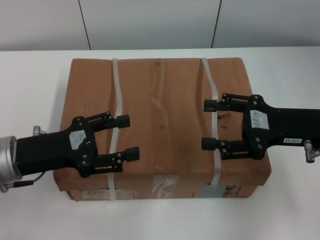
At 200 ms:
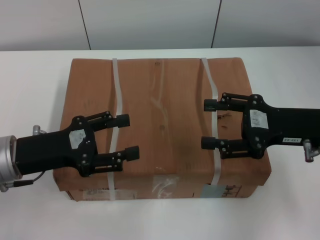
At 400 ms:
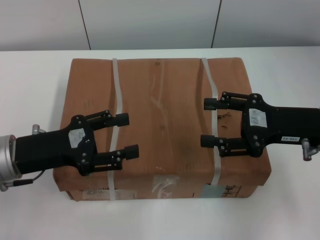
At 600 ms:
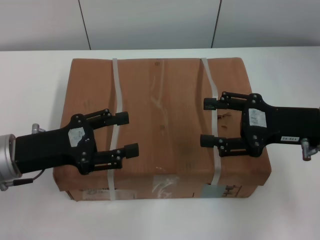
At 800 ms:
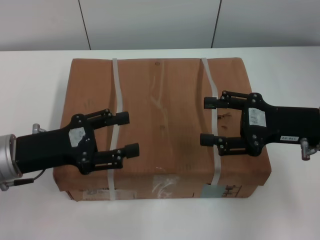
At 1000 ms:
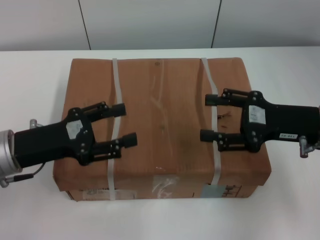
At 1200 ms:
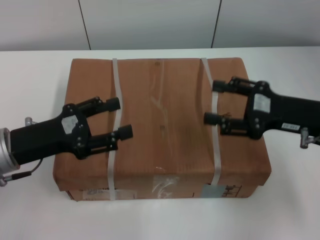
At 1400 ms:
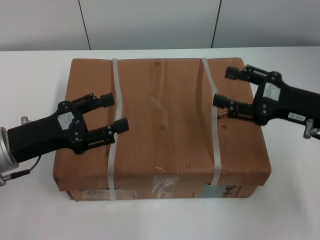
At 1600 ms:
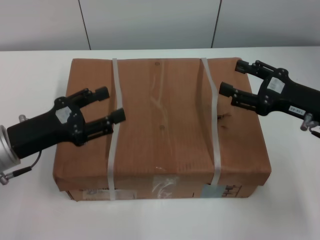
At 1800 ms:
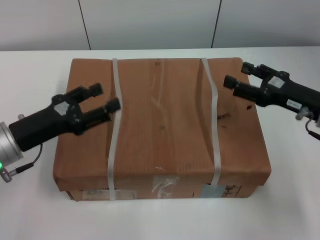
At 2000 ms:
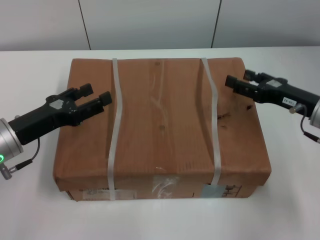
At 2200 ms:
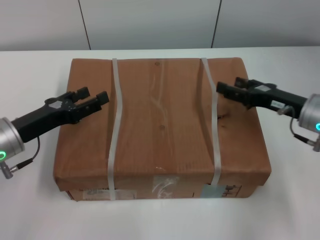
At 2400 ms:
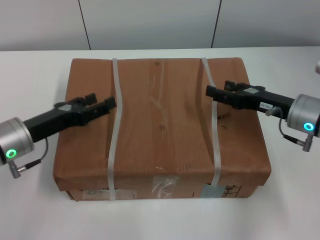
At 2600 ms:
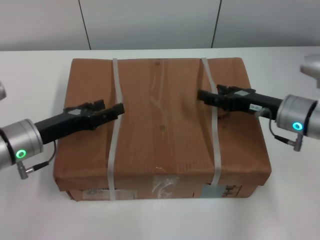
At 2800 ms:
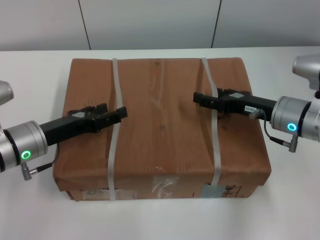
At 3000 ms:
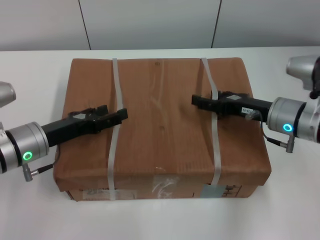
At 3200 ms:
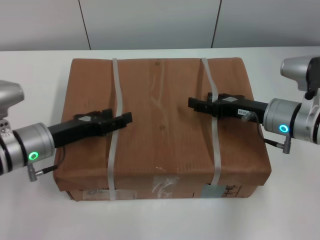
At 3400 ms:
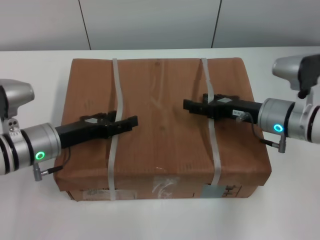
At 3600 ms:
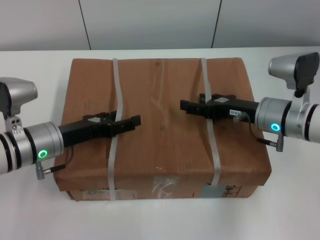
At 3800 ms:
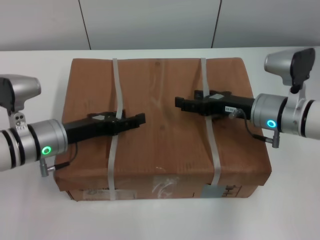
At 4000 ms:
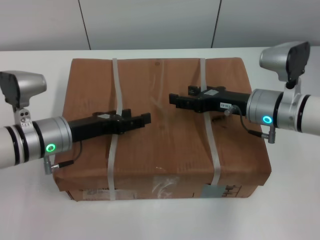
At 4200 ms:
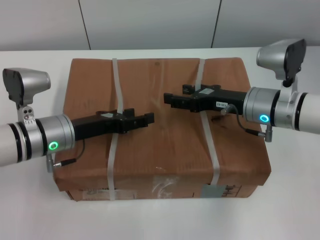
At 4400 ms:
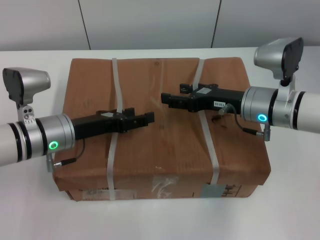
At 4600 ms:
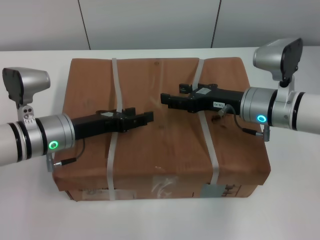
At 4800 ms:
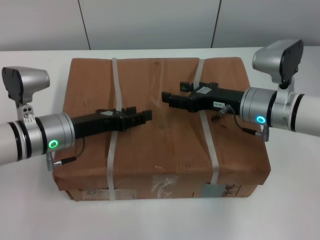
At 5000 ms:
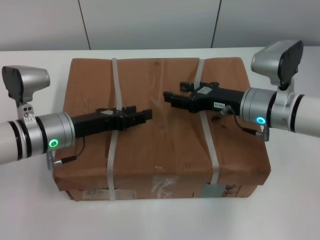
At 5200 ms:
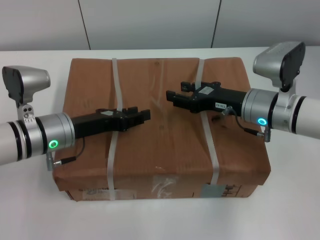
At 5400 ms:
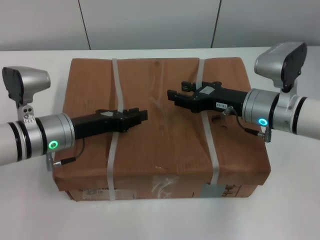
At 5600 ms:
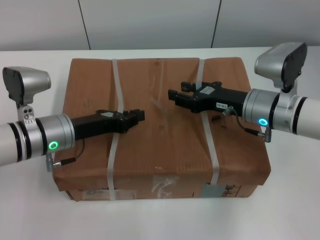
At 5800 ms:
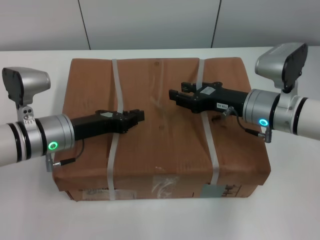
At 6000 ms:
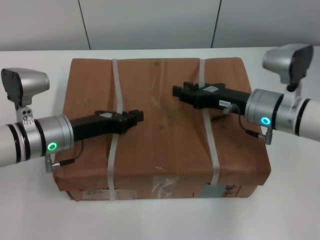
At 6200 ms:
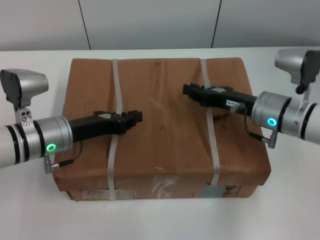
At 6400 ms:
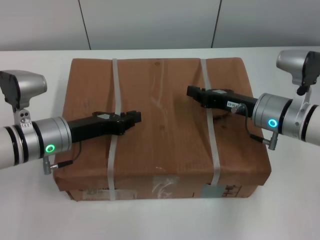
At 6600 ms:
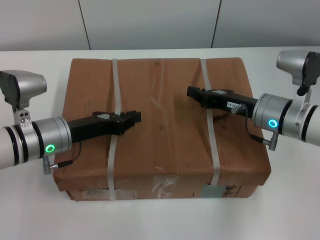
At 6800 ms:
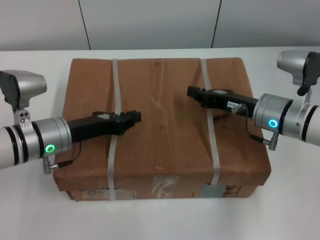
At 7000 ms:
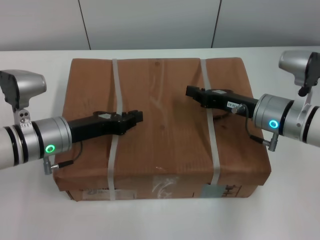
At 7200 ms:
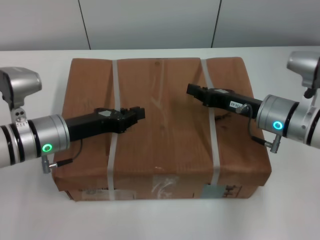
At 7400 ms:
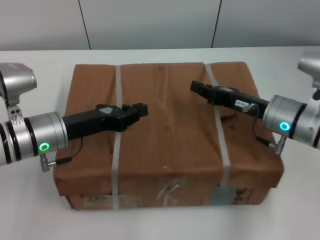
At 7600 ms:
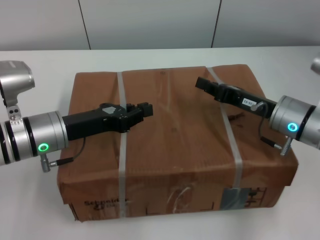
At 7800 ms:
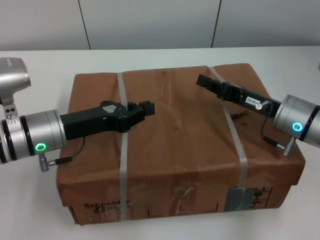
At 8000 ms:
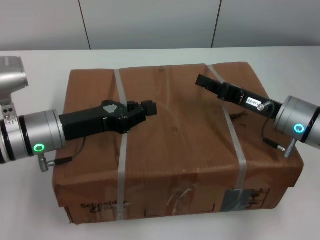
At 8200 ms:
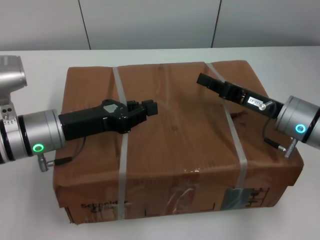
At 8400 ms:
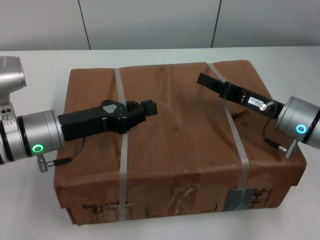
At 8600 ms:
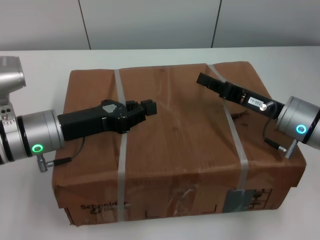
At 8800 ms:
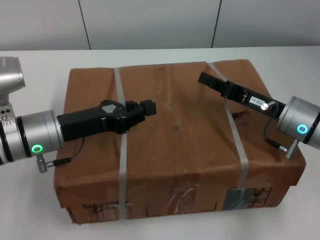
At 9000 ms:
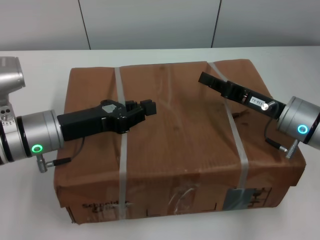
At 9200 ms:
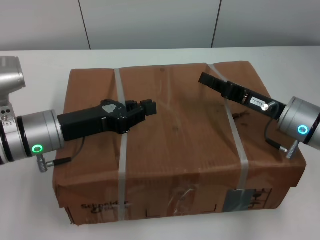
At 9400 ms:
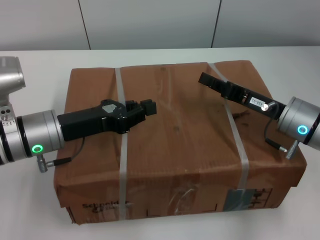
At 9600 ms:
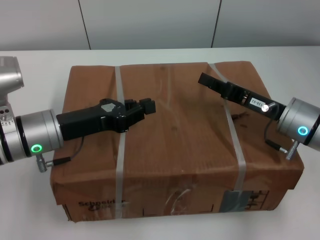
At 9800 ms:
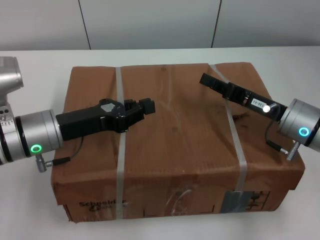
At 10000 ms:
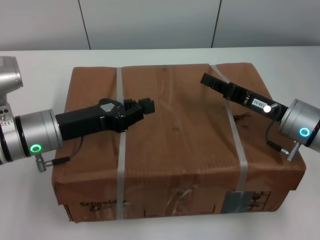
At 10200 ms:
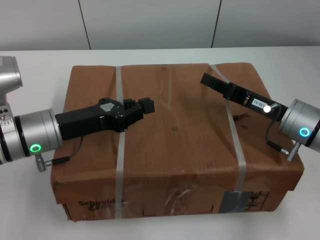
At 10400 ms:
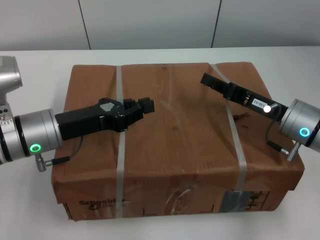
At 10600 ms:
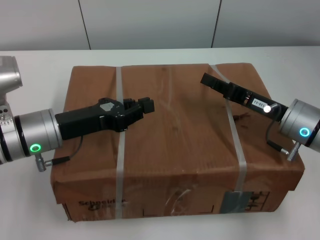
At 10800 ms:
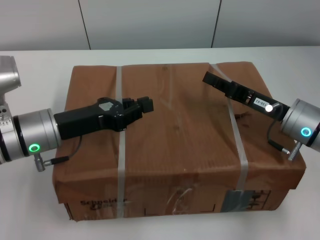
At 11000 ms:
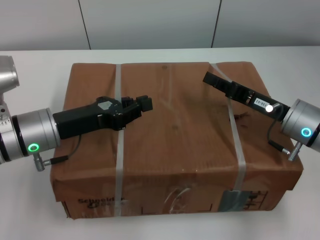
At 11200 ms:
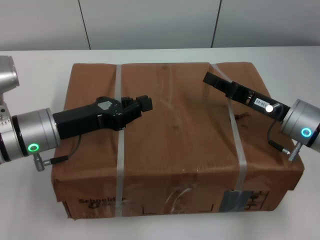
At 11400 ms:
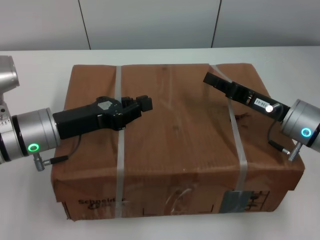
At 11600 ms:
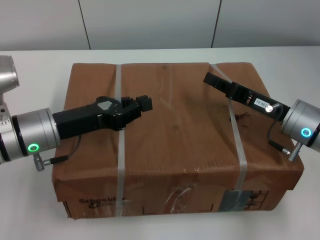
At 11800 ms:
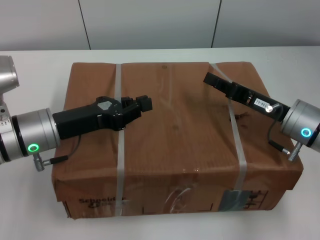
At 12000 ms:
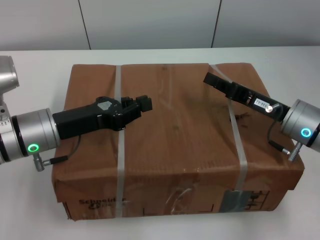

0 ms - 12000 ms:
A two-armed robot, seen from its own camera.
Task of the whole recording: pick up the box from the table with both arms.
Step, 0 ms - 6400 ms: Grasp the bandage with left gripper.
Step, 0 ms - 6400 ms: Grasp the bandage with right gripper.
Step, 6600 ms - 8200 ms: Lift the box with left gripper.
Step, 6600 ms - 8200 ms: Lift the box with right gripper.
1600 ms - 3000 ms: The right gripper travels to the left by some 5 cm, while the left gripper changes place by approximately 5 cm.
3000 ms - 4400 ms: The right gripper moves approximately 5 cm.
4400 ms - 6000 ms: The right gripper closes up. The left gripper closes up.
6000 ms - 7600 ms: The right gripper closes up.
7600 ms - 9000 ms: There are only small adjustments of the grippers.
9000 ms - 12000 ms: Both grippers stay put.
